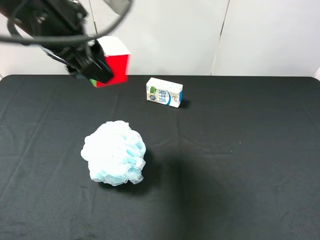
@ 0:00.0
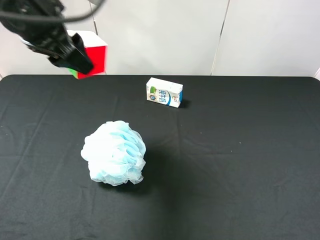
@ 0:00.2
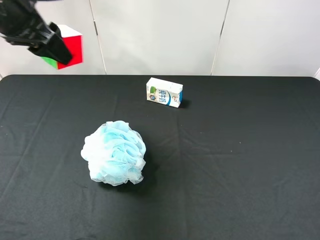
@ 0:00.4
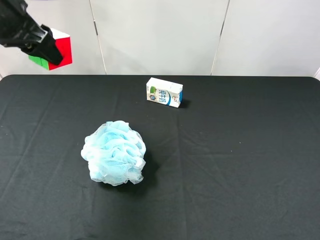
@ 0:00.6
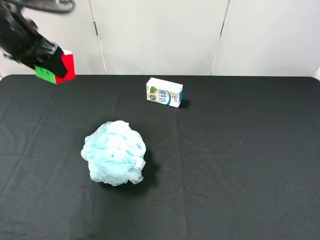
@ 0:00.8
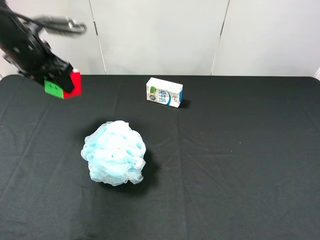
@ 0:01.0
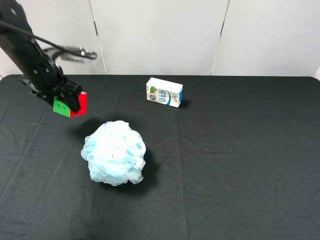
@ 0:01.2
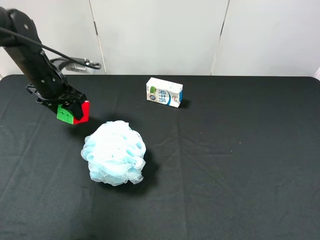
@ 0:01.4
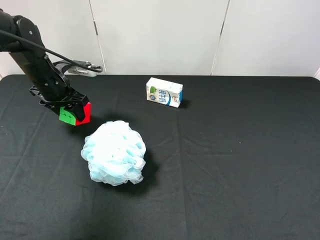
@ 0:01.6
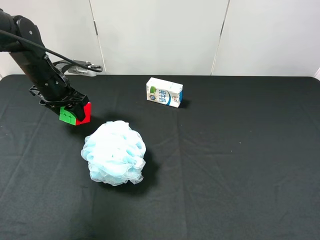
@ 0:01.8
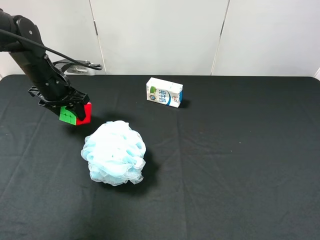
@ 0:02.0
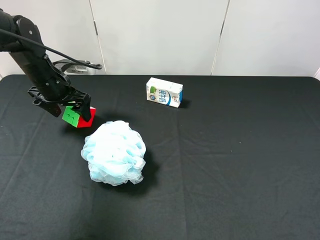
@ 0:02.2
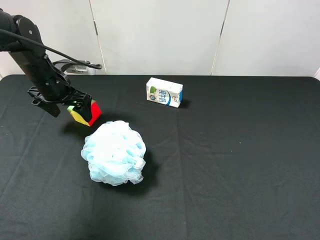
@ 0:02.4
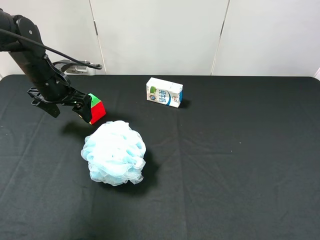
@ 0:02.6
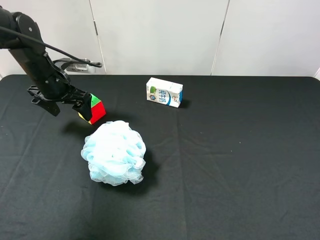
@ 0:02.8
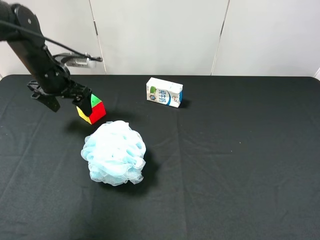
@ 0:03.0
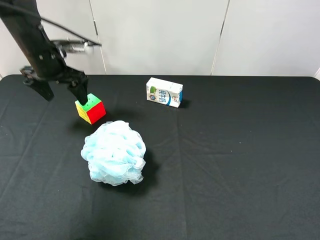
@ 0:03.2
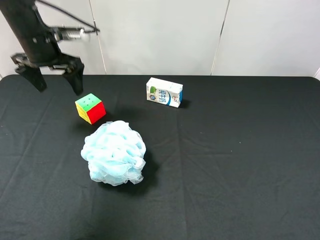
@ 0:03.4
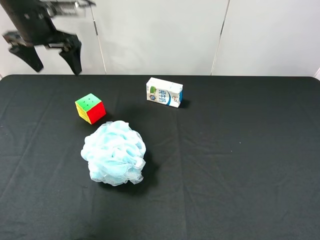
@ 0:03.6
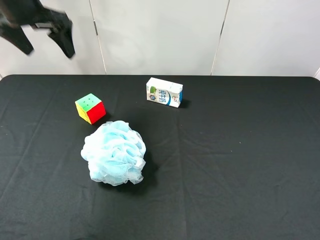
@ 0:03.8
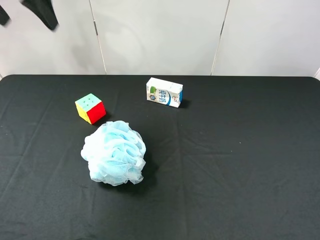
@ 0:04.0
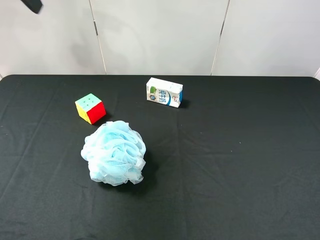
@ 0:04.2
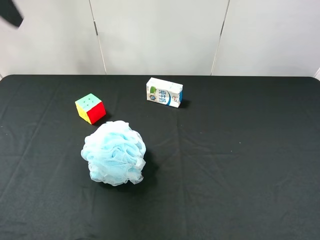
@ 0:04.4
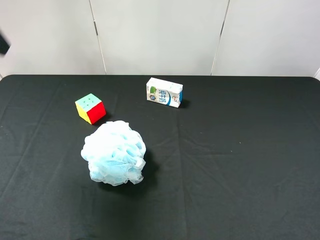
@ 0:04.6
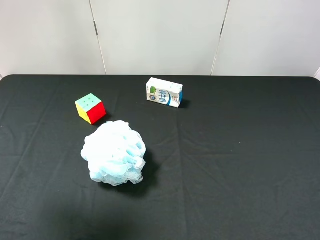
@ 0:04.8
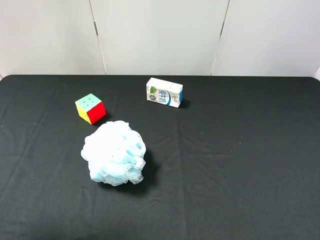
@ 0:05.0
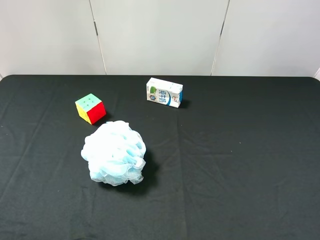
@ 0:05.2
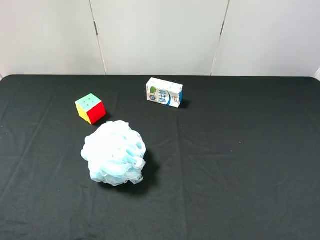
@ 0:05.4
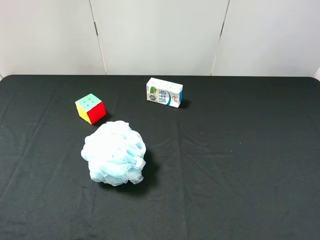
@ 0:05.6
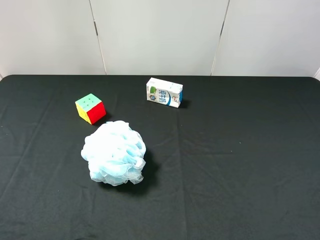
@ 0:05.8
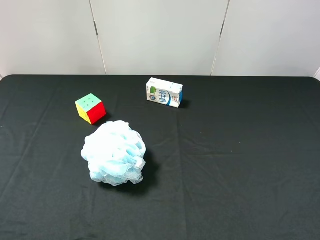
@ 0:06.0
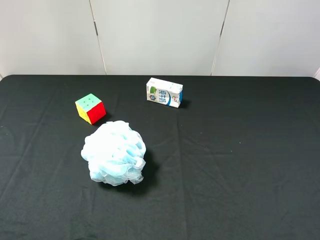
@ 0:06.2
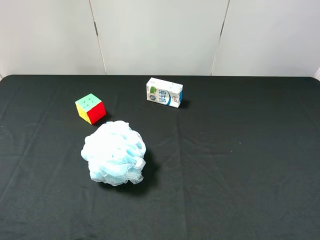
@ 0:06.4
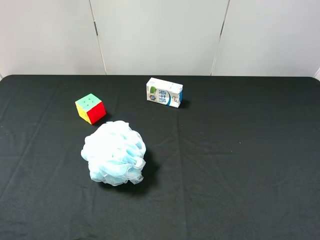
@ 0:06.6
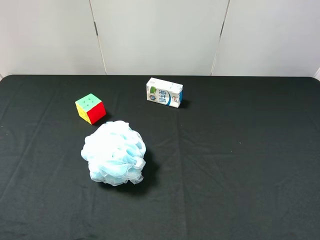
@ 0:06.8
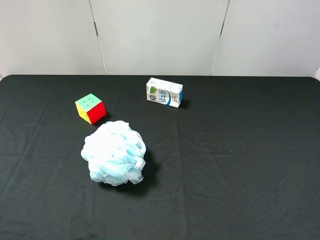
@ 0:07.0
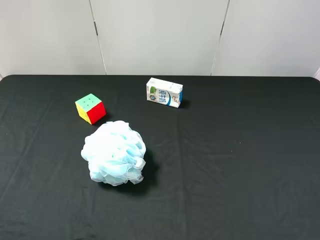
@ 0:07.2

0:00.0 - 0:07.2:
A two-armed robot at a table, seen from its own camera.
Task of the whole recording: use the right gripper to pick up the item and transfer it from the right gripper to the left gripper.
Step, 0:00.0 - 0:02.6: The left gripper places milk on the left side of the table.
0:00.0 - 0:01.4: The left gripper heads downward, forward and to the left, covering roughly 25 cm.
0:01.4 - 0:02.8: The left gripper opens its fingers.
0:02.8 - 0:04.4: The left gripper is displaced upward and backward by roughly 30 cm.
0:04.4 - 0:05.8: The left gripper goes some 30 cm backward and downward.
